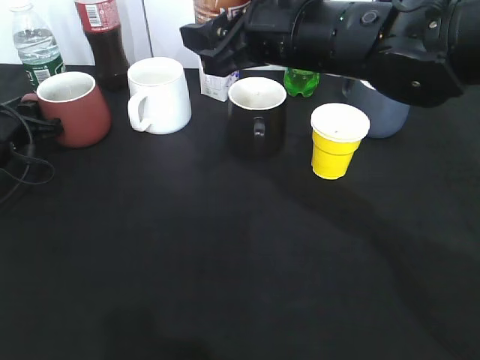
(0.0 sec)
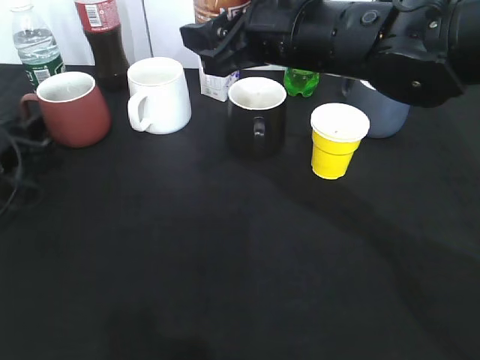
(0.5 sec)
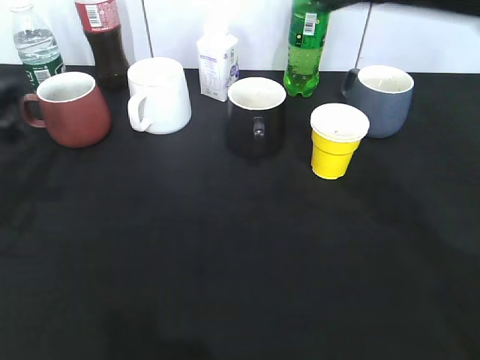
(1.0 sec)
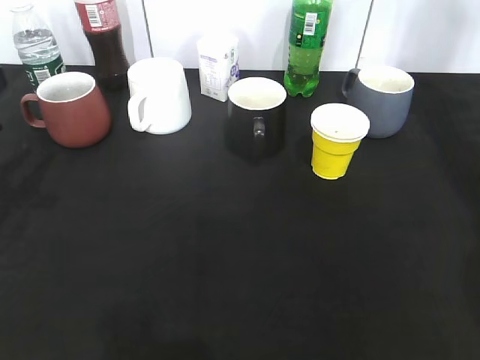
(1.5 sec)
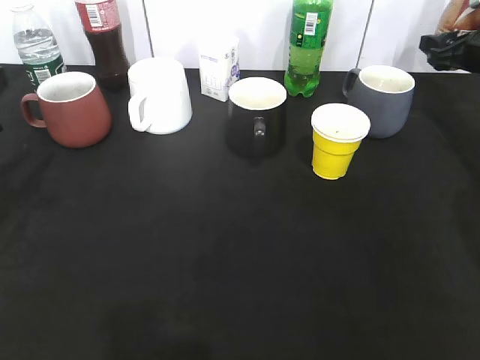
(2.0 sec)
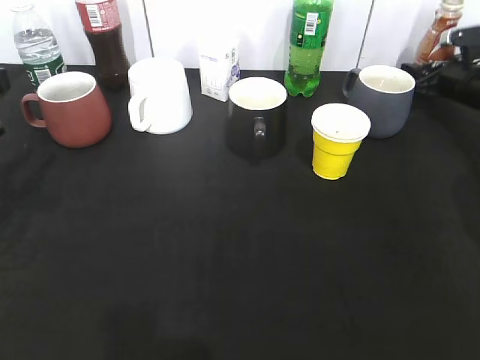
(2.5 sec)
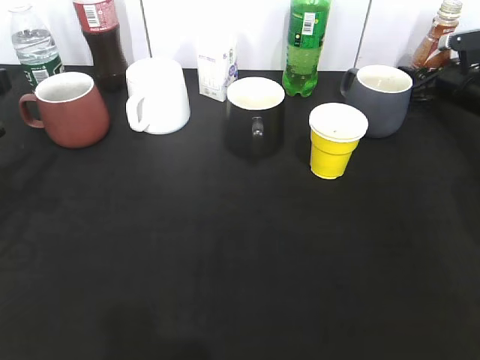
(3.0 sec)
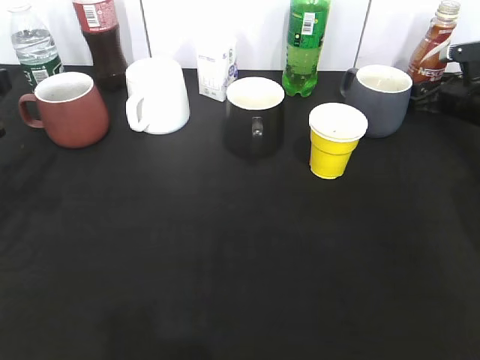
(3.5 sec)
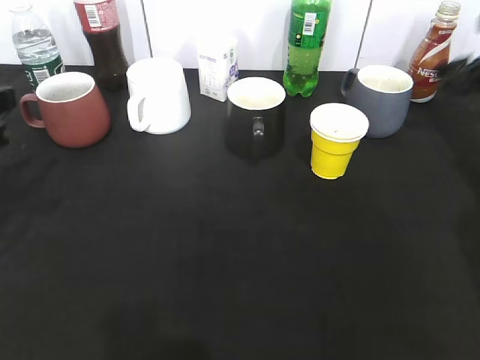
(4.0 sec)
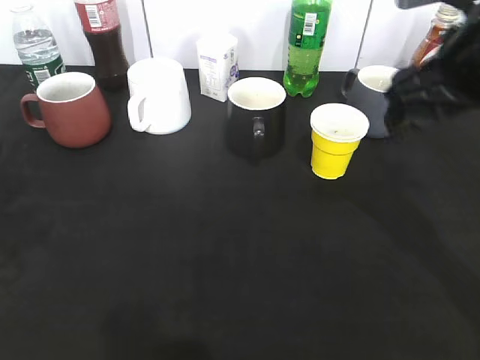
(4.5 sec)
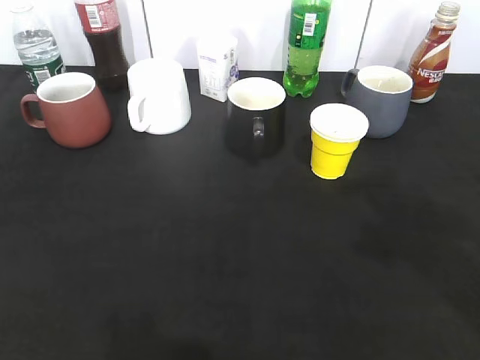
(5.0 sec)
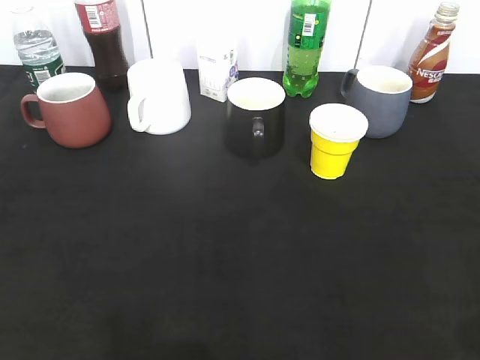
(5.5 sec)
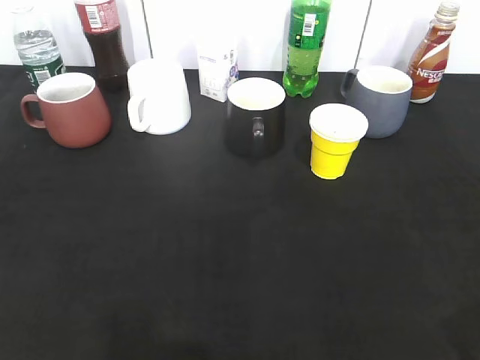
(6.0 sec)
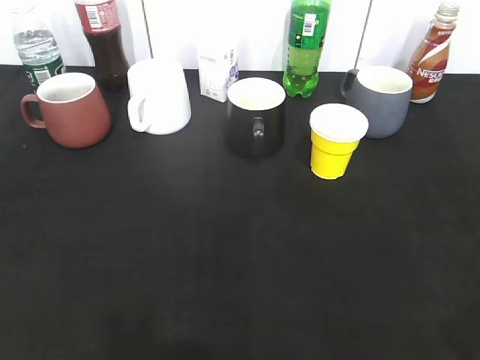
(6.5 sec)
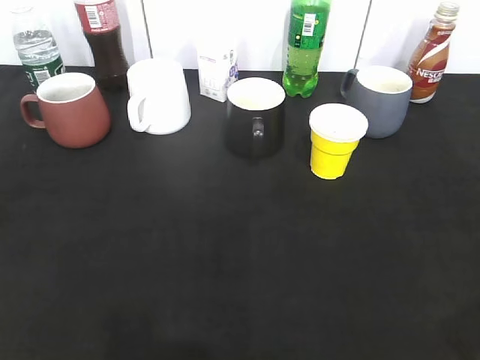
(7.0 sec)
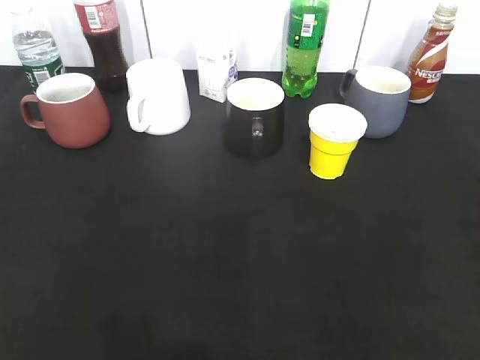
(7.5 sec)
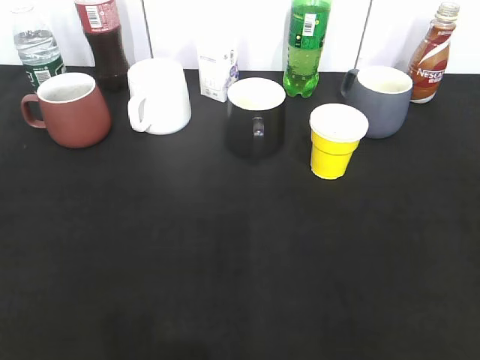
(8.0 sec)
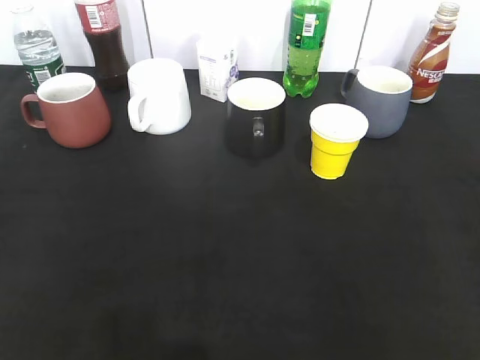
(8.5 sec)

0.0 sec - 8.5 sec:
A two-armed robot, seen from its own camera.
Step, 0.5 sec - 3.0 sec: Place the coffee bottle on the table with right gripper.
0.0 sec - 2.0 sec: The left gripper shifts approximately 20 cm backward and upward. Meanwhile the right gripper travels to the right and forward by approximately 35 cm.
2.0 sec - 4.0 sec: The right gripper shifts some 5 cm backward, and moves approximately 10 cm downward and comes back.
4.0 sec - 6.5 sec: The right gripper is displaced backward by about 40 cm, while the left gripper heads backward, covering about 20 cm, and opens up.
